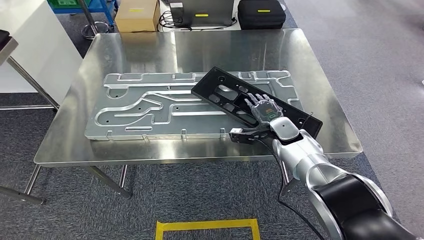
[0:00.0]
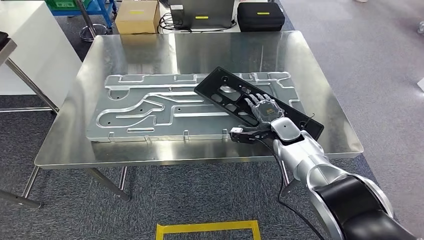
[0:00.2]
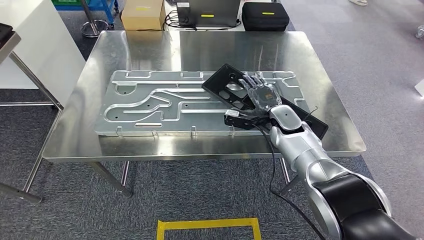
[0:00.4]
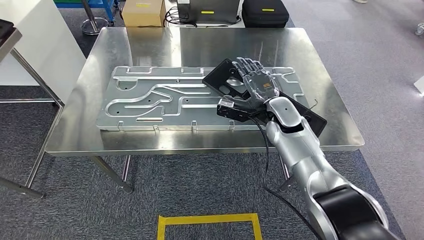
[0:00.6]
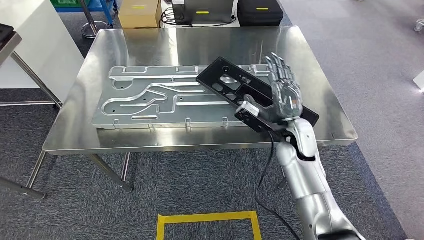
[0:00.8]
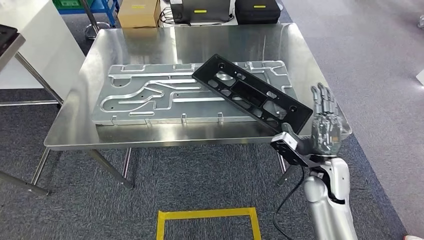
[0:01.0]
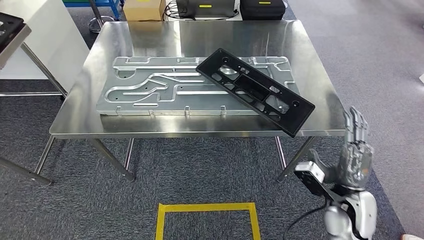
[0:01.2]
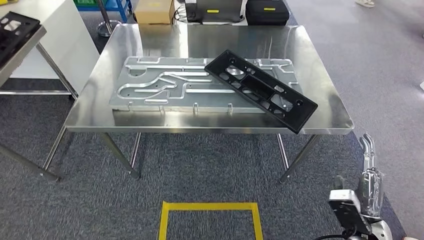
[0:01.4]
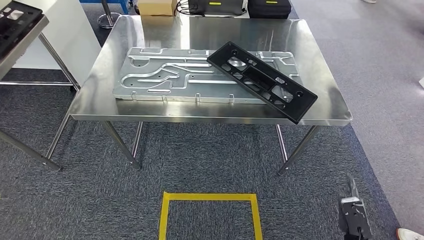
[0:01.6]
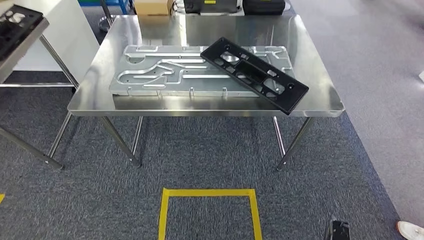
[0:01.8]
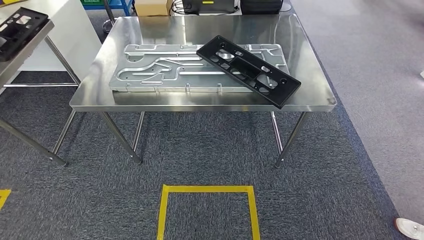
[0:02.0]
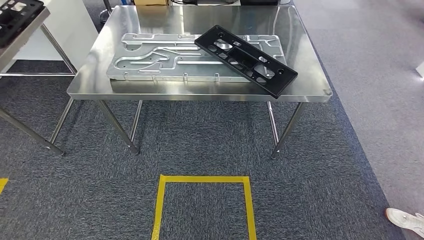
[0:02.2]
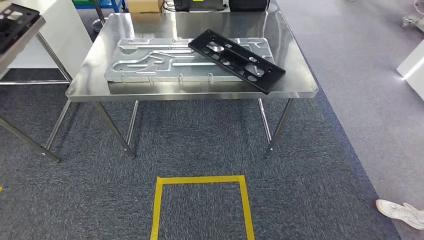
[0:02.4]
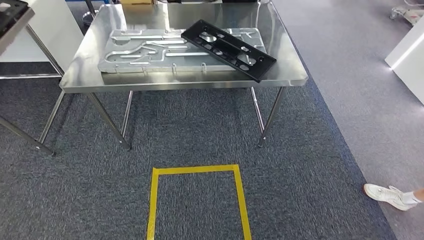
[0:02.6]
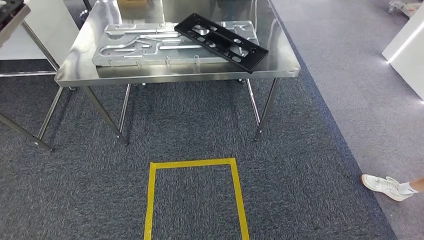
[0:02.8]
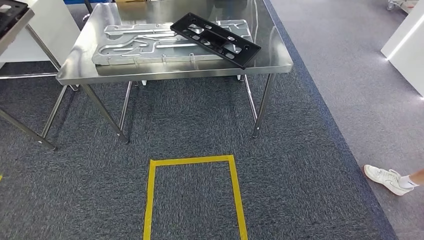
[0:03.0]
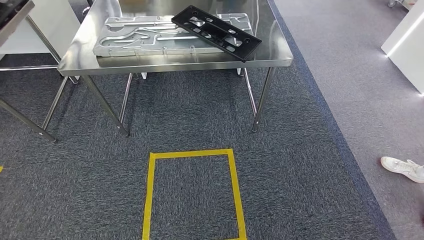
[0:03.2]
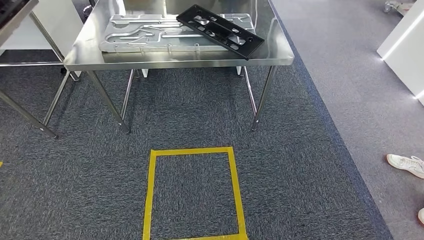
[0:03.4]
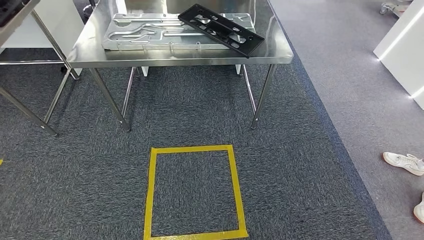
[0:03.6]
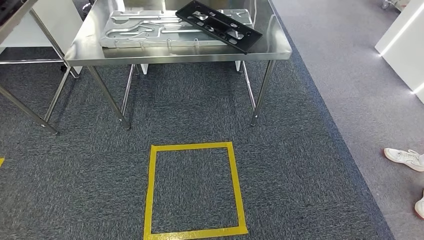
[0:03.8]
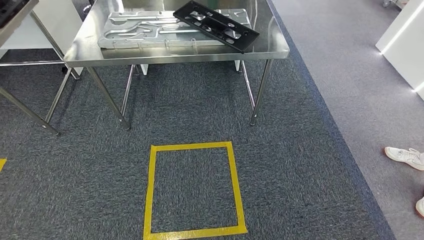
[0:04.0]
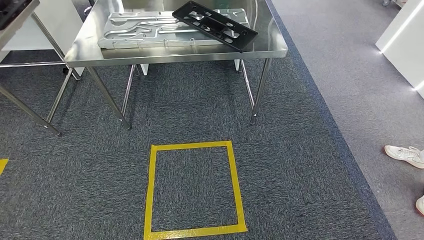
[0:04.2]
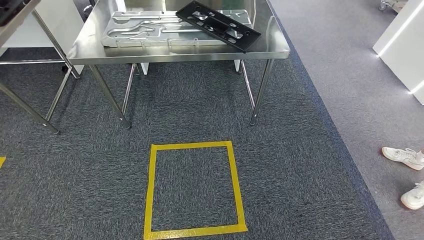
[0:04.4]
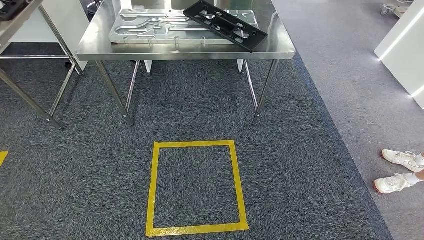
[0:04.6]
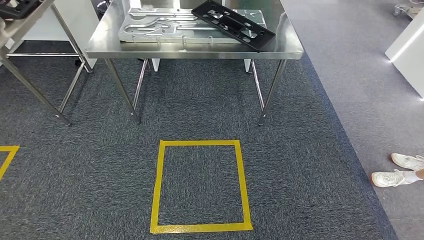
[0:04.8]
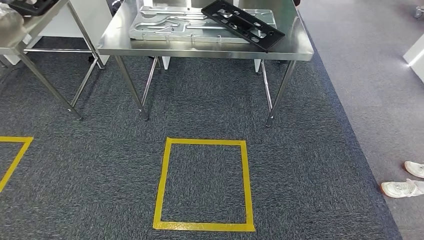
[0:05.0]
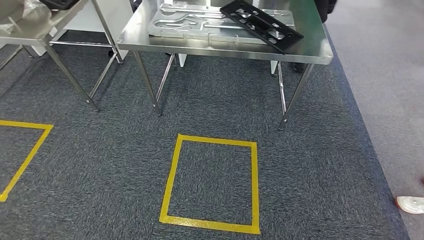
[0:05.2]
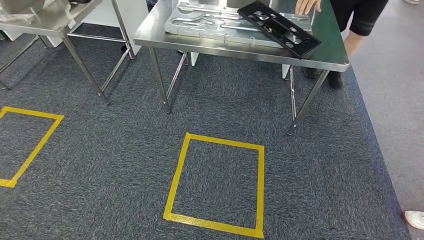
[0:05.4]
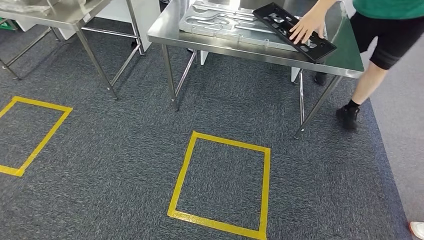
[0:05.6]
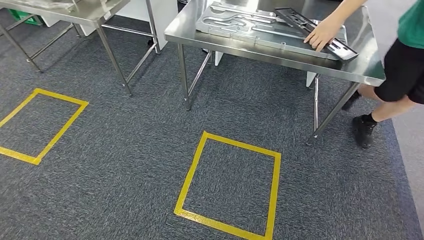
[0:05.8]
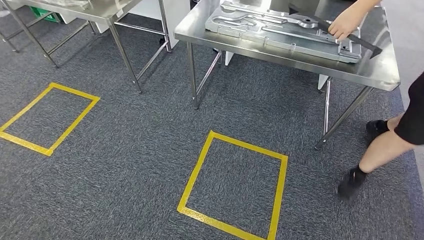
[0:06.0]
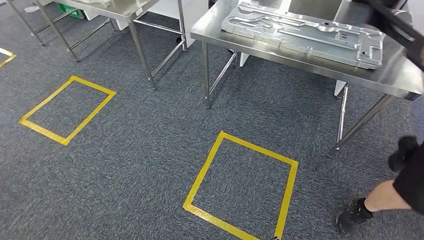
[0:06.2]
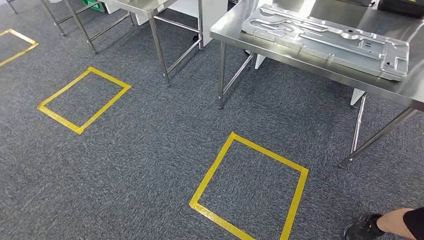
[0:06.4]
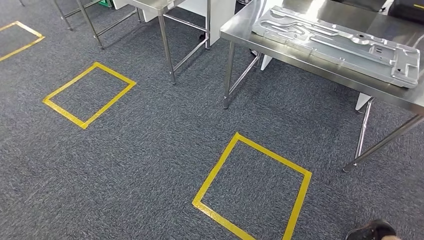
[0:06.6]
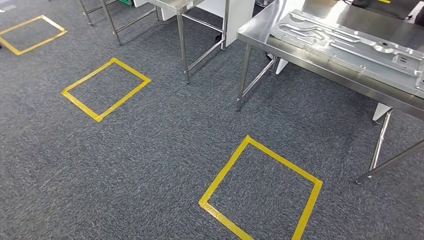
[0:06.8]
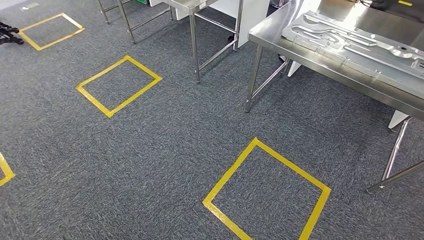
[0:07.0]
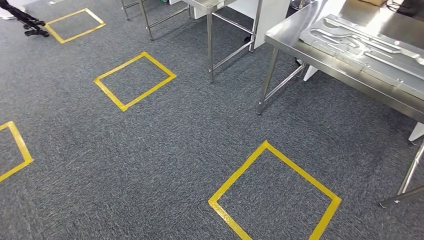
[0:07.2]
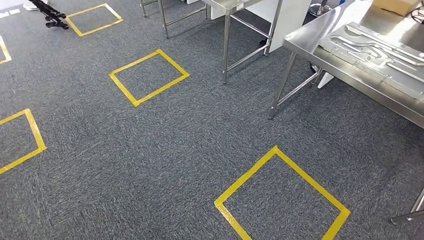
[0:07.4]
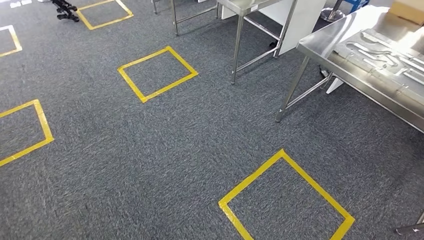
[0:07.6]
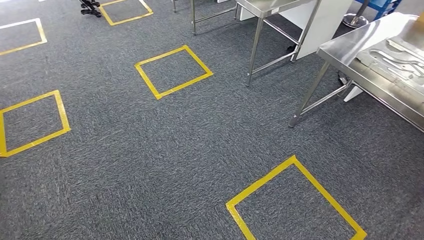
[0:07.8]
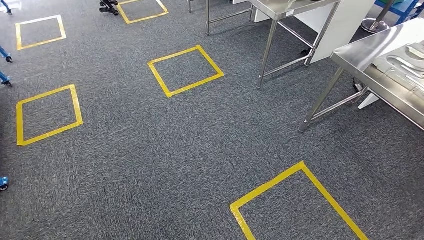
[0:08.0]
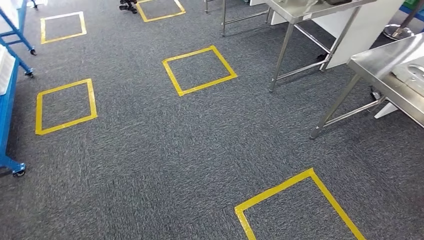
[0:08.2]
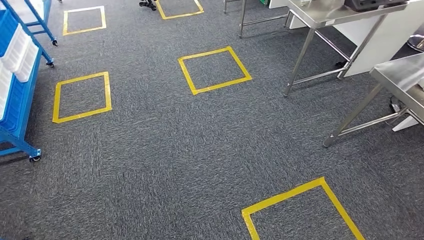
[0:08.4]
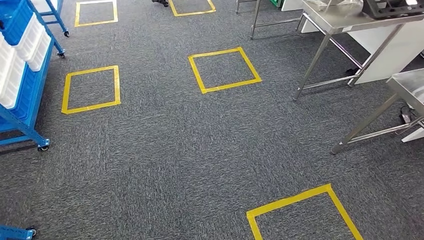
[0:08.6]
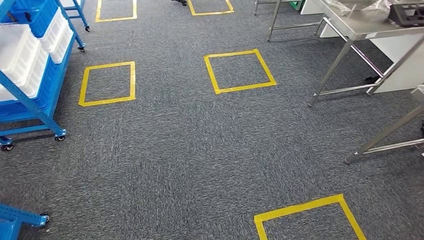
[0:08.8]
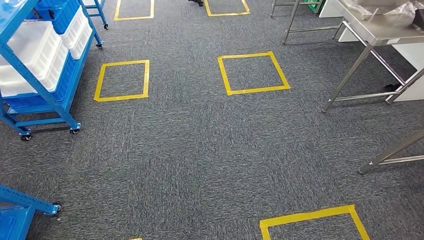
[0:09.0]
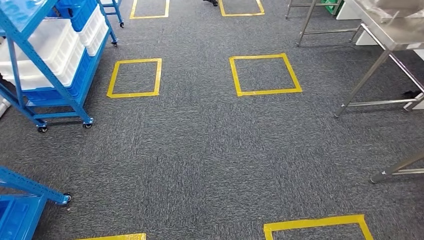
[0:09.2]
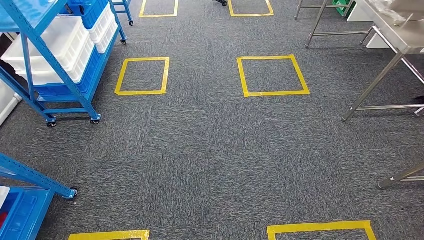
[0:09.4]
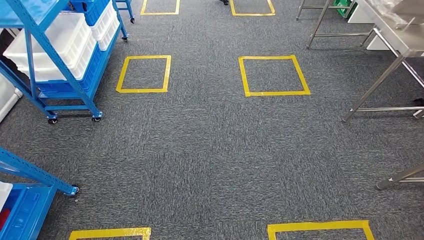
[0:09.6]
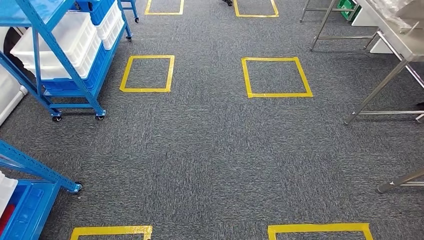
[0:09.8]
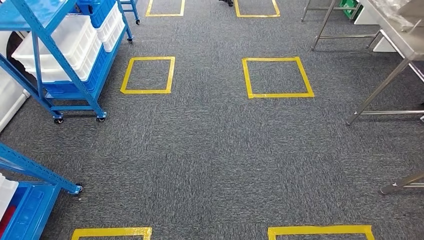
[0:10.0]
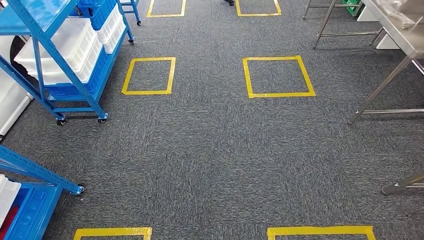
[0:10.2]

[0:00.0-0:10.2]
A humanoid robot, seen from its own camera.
Step, 0:00.0 to 0:01.0: Insert the large material into the corresponding slot on the workbench.

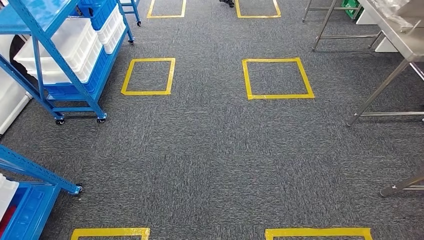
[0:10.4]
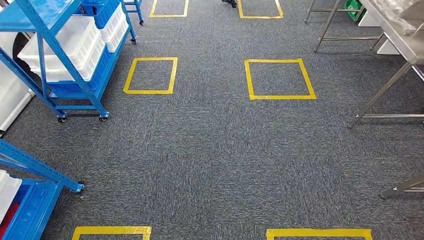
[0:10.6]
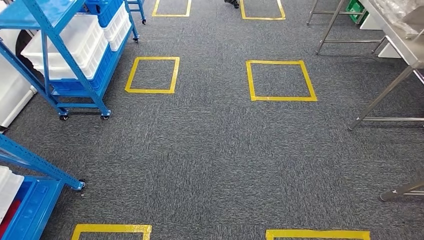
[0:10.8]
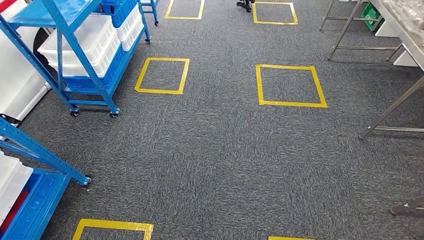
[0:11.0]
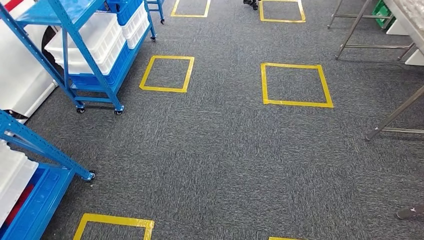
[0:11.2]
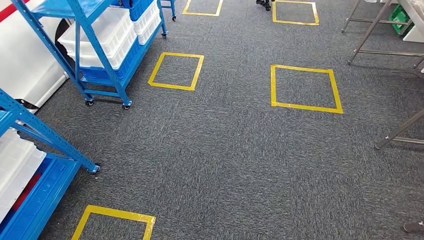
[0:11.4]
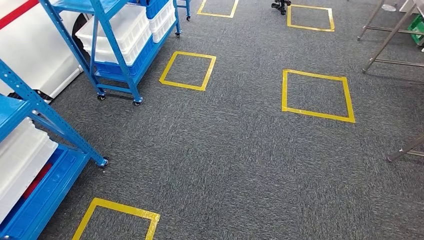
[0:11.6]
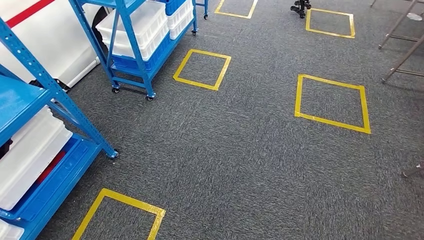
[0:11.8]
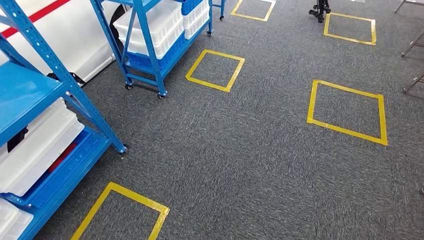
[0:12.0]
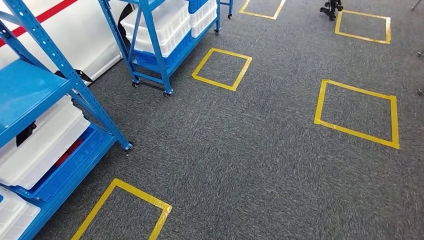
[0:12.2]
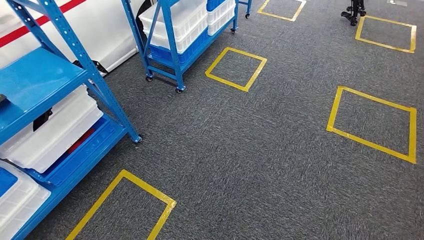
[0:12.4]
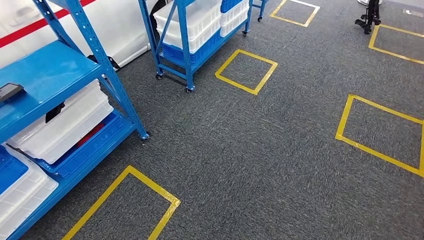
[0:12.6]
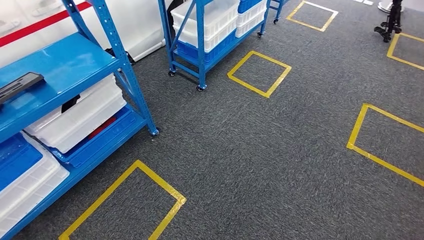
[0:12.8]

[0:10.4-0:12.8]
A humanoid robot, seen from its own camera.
Step, 0:10.4 to 0:12.8: Move to the initial position of the shelf.
